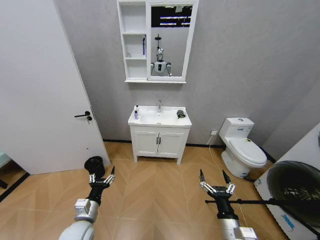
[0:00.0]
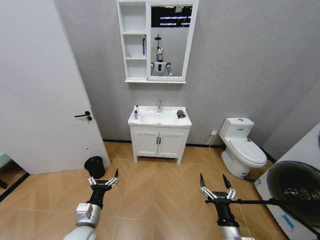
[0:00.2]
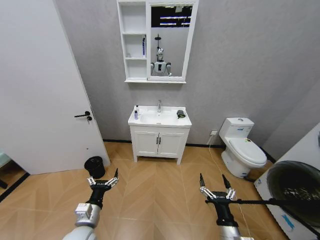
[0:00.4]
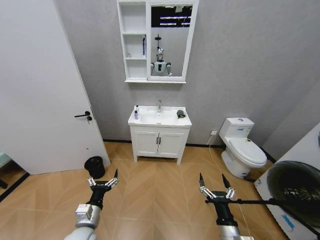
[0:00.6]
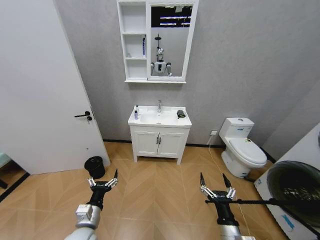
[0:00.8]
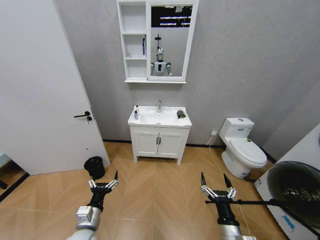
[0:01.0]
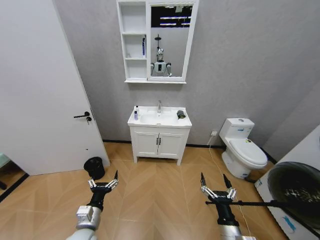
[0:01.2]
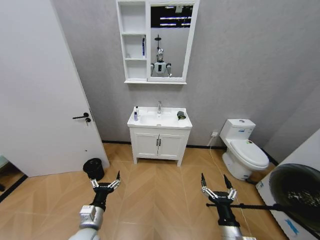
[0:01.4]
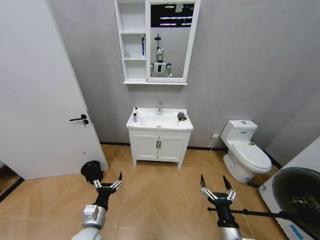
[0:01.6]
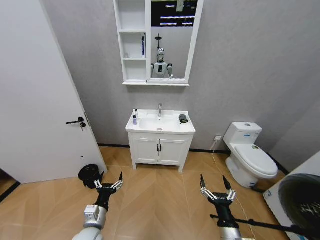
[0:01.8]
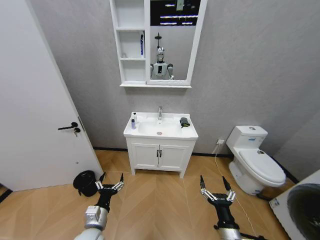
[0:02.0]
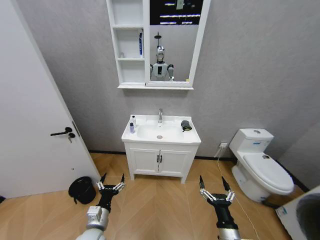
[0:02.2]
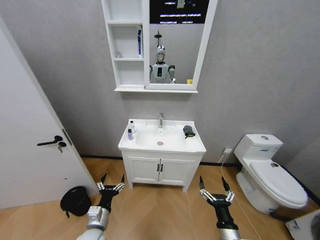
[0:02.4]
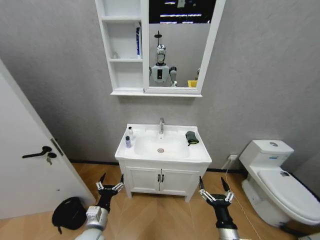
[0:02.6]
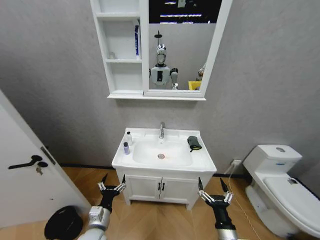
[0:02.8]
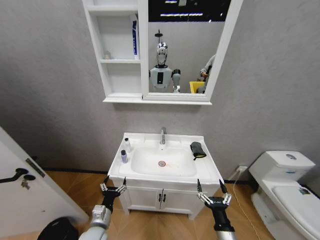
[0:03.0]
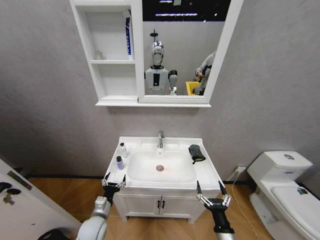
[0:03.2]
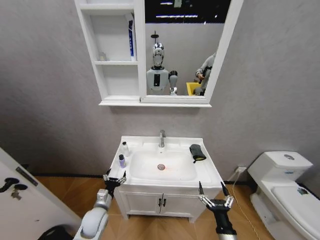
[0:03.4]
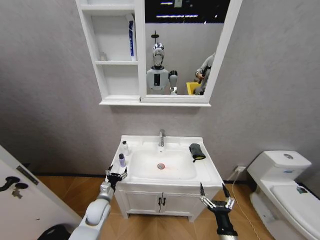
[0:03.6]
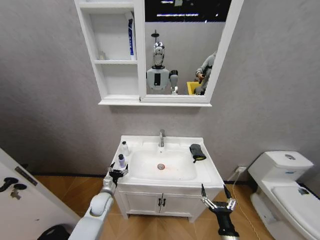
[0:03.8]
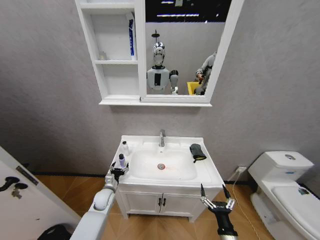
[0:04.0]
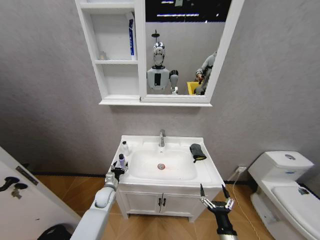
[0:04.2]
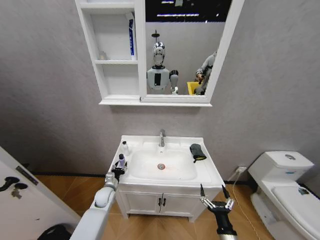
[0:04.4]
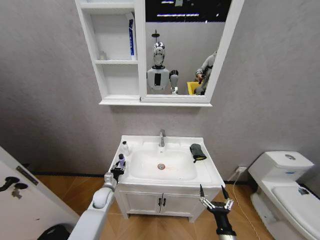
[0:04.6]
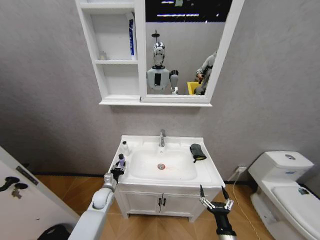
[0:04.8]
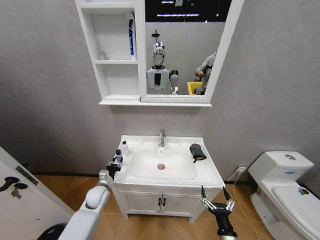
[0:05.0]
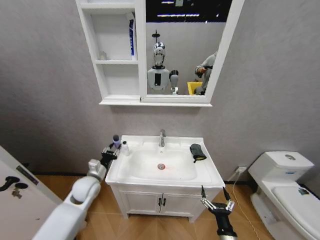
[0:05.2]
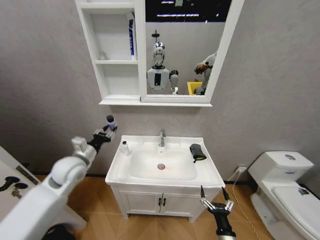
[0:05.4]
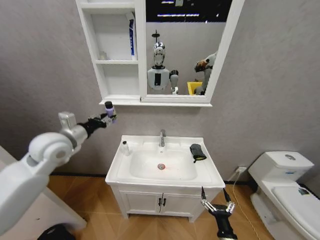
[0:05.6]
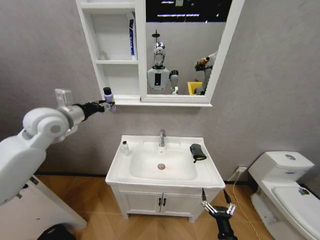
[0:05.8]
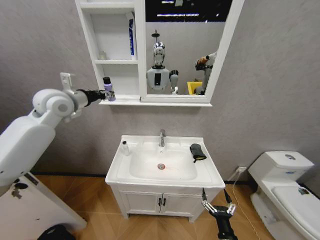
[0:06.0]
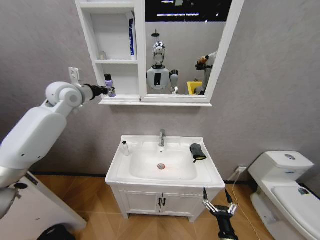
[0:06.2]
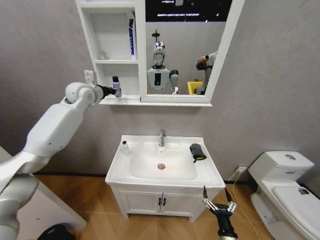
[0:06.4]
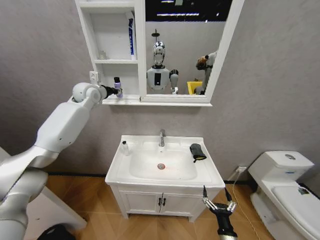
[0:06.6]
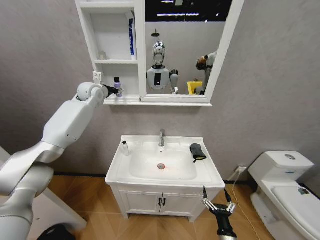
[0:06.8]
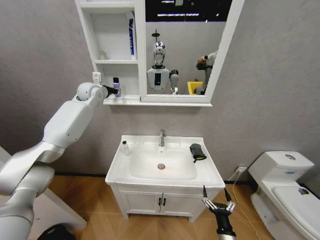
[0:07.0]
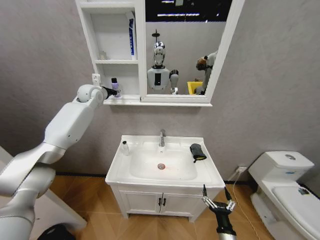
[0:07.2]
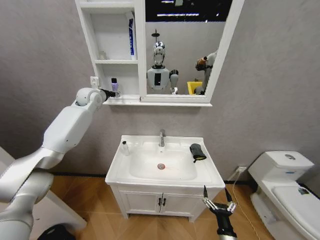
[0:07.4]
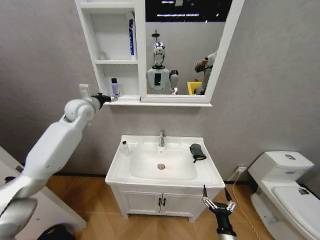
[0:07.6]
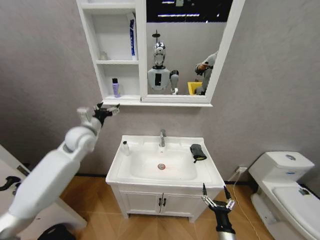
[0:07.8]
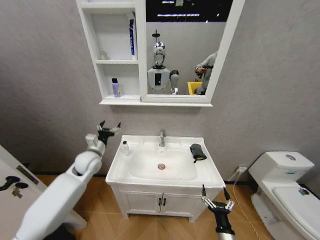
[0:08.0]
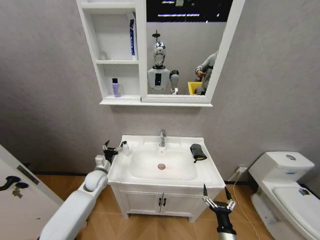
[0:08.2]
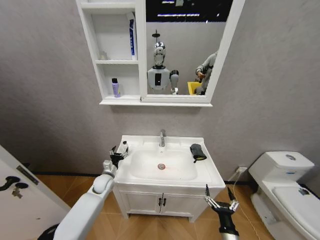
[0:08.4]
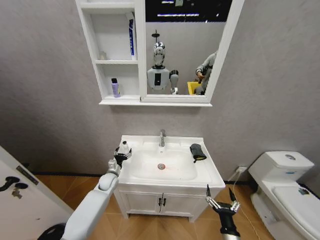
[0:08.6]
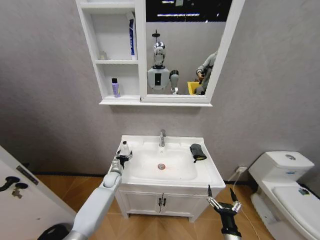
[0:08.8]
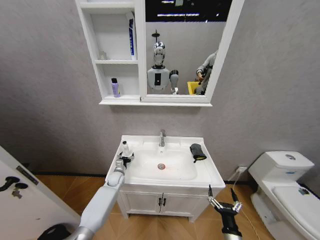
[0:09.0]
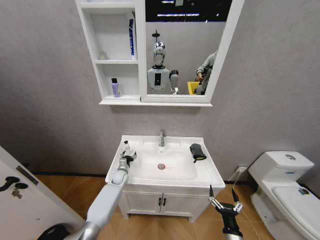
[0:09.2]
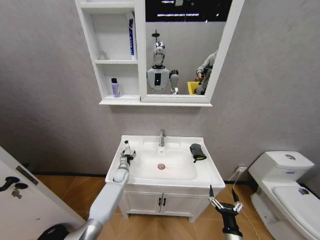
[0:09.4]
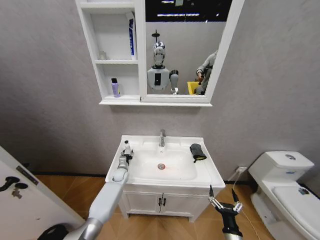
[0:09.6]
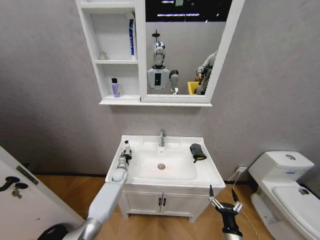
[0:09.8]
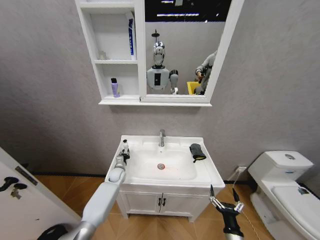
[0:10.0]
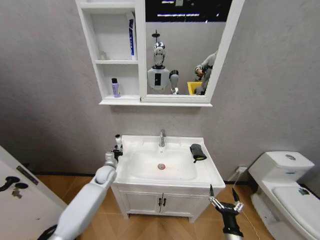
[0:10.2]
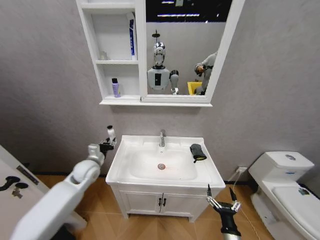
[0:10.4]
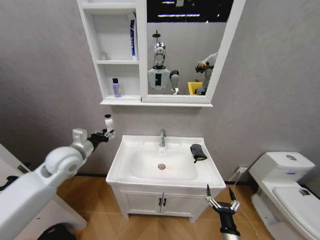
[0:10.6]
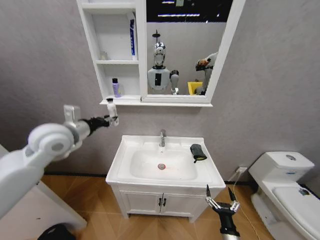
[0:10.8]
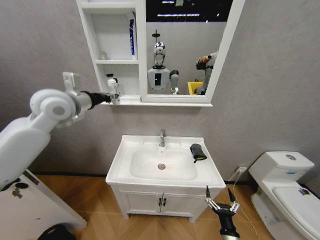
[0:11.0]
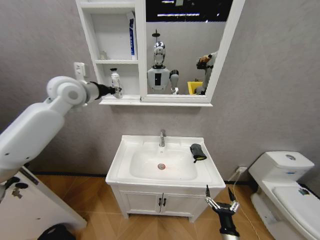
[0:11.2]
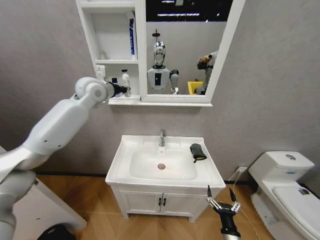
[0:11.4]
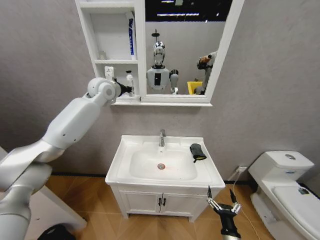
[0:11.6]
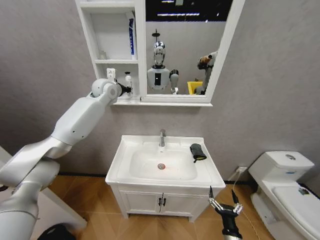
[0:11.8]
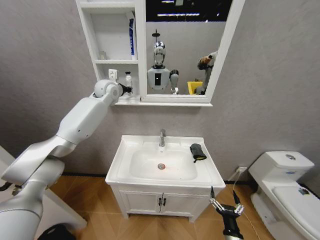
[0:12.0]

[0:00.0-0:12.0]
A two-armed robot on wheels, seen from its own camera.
Task of the whole recording: Move facial cleanser and shampoo from washbasin to cabinet, then wipe washbasin with towel.
0:03.0 to 0:04.4: The left gripper heads forward, covering about 20 cm, and closes its fingers.
0:04.4 to 0:06.0: The left gripper is displaced upward by about 50 cm.
0:06.0 to 0:07.6: The left gripper travels forward by some 10 cm, and opens.
0:07.6 to 0:09.0: The left gripper travels downward by about 40 cm.
0:09.0 to 0:10.4: The left gripper goes roughly 20 cm upward and backward, and closes.
0:10.4 to 0:12.0: The left gripper moves upward and forward, about 35 cm.

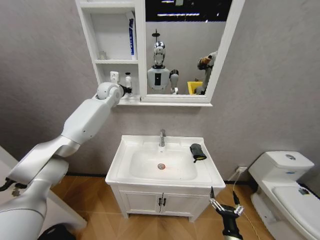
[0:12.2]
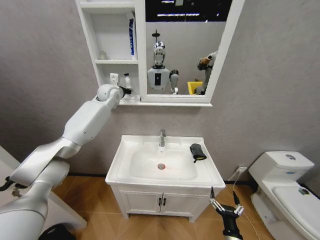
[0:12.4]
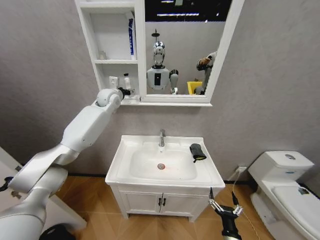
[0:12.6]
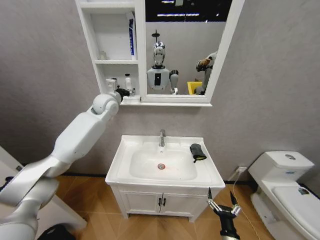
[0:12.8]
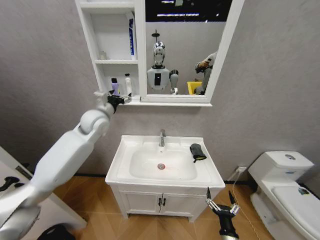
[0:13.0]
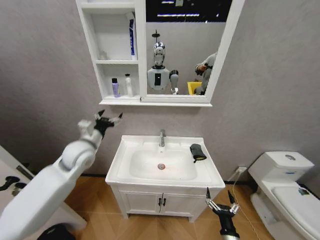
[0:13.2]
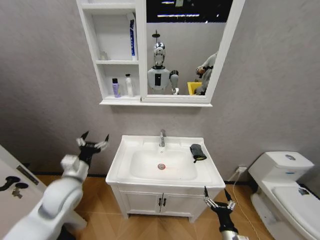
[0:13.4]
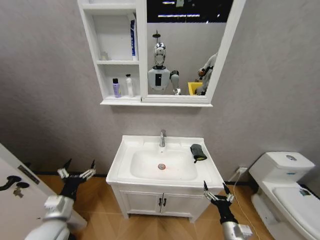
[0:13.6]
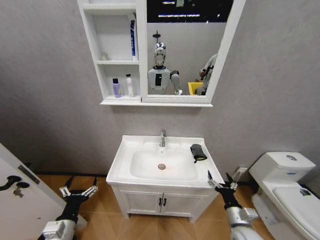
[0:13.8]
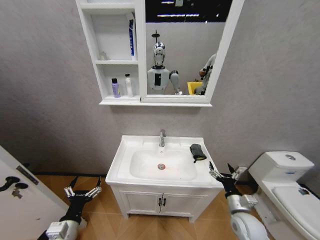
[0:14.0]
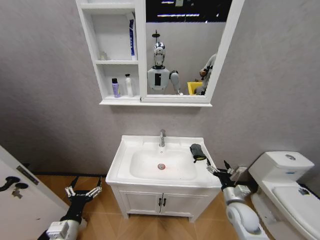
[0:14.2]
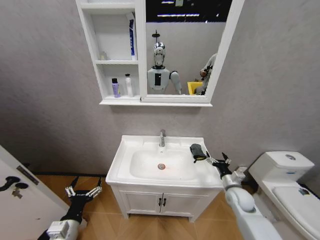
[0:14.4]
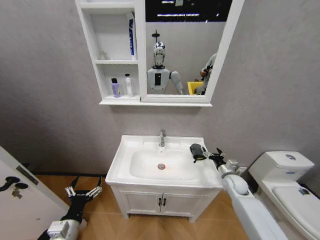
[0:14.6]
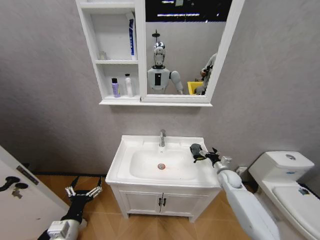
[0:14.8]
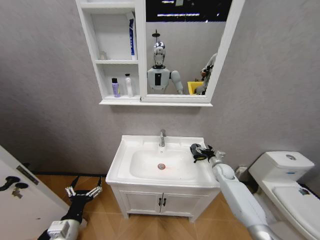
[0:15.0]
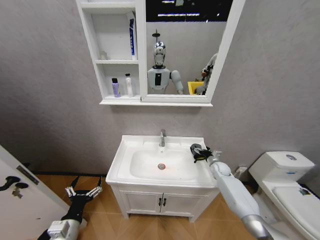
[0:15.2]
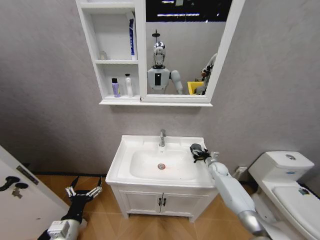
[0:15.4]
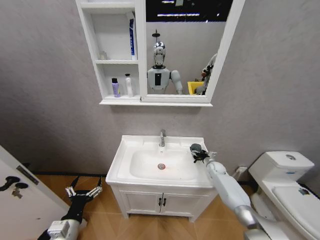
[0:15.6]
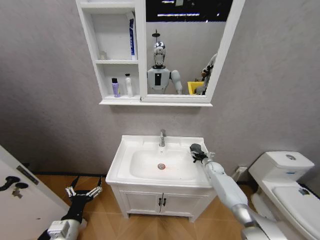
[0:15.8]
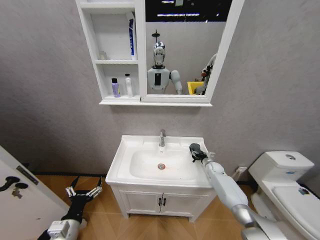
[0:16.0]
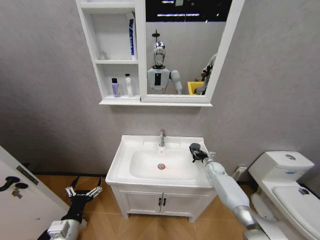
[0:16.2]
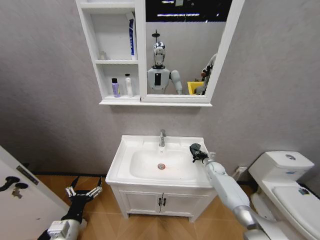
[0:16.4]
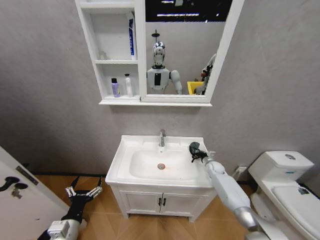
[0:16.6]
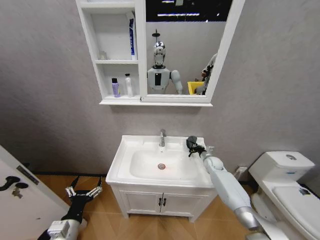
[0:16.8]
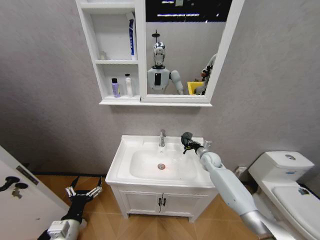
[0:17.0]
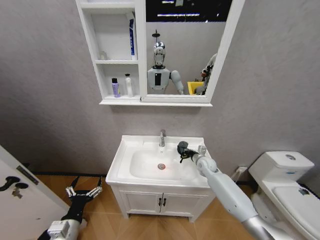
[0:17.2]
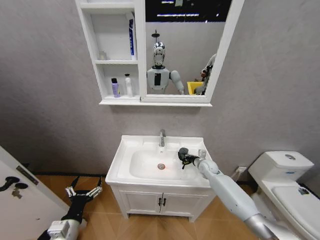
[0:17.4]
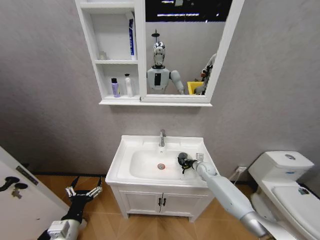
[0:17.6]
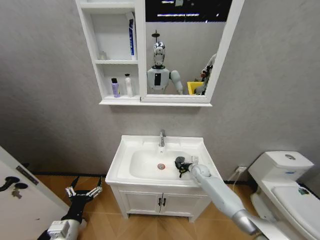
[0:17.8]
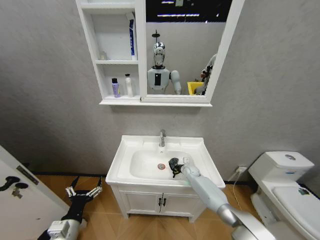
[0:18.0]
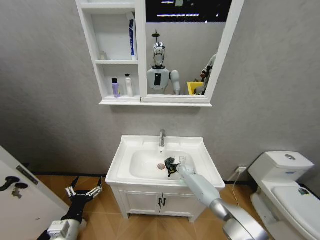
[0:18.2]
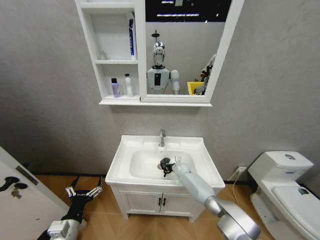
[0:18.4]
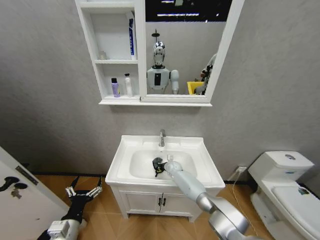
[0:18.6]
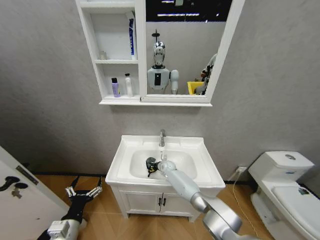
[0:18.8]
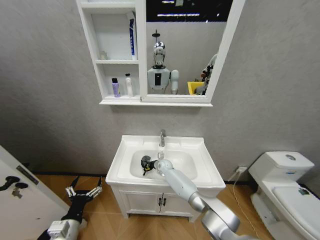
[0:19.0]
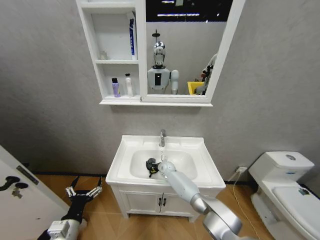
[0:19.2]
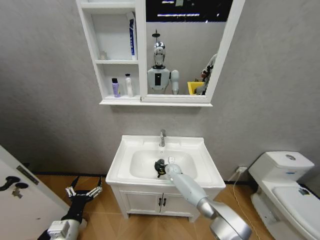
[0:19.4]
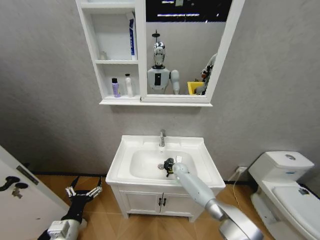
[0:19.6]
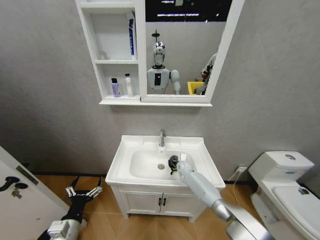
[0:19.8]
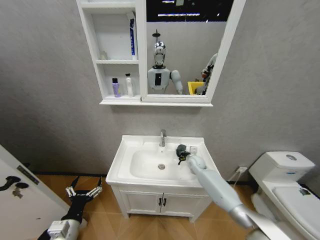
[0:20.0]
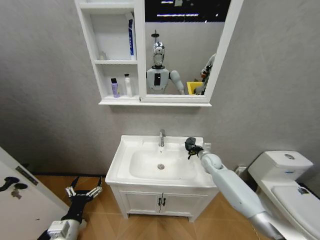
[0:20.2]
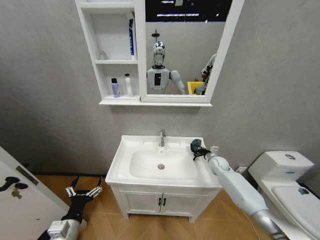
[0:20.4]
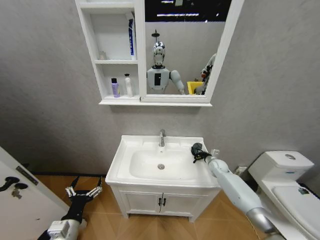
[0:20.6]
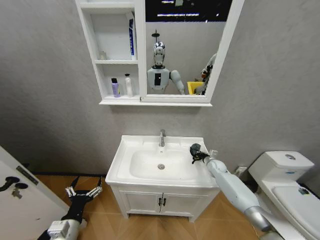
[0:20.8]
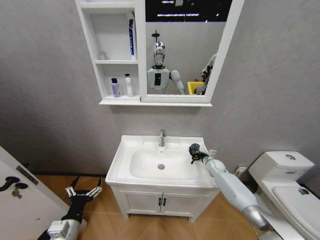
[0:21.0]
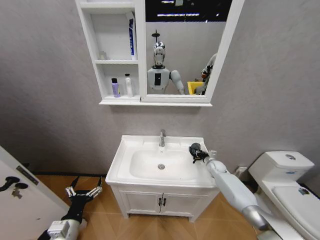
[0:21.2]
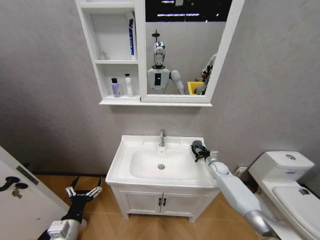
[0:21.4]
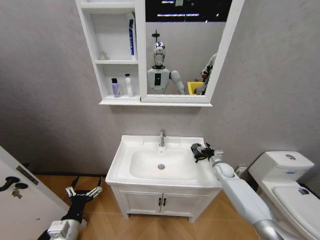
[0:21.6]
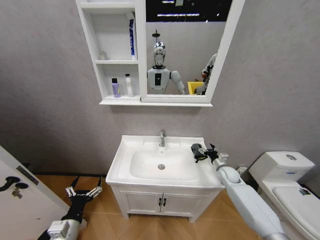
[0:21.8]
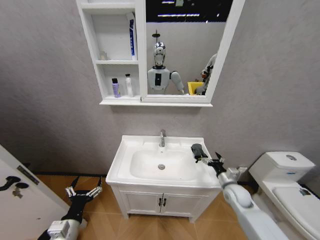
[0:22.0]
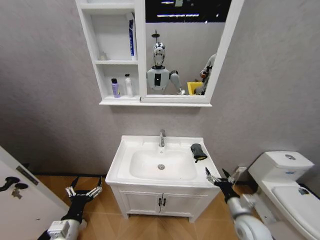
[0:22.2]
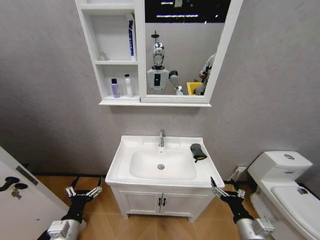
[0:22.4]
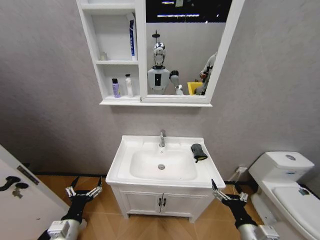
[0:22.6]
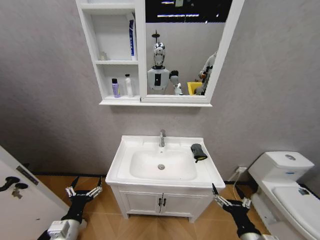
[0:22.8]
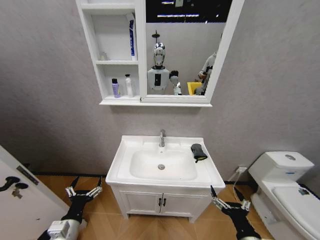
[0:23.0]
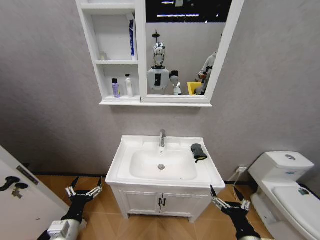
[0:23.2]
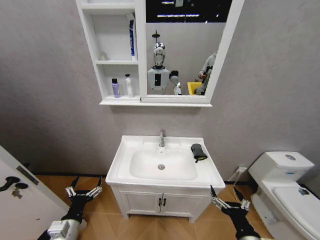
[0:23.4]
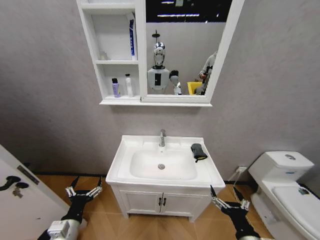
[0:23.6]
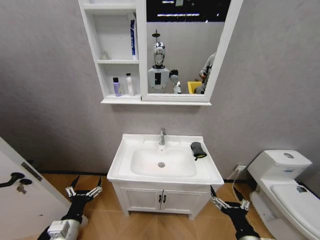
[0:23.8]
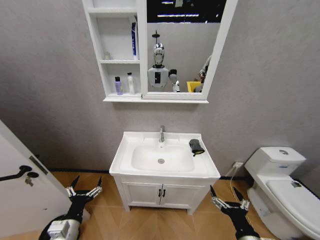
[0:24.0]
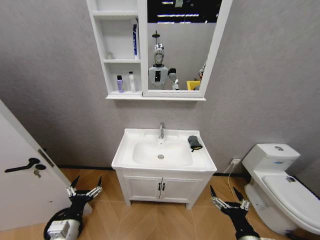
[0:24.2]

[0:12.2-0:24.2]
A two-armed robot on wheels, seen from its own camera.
Task of the whole recording: Move facial cleanser and shampoo from washbasin to cabinet, then wipe washbasin with towel.
0:12.2 to 0:13.8: The left gripper travels backward and downward by roughly 60 cm, and opens up, while the right gripper is displaced upward and forward by approximately 10 cm.
0:13.8 to 0:15.2: The right gripper goes roughly 30 cm forward.
0:15.2 to 0:16.6: The right gripper closes up.
0:16.6 to 0:18.2: The right gripper is displaced to the left by approximately 15 cm.
0:18.2 to 0:19.8: The right gripper moves approximately 15 cm to the left and comes back.
0:19.8 to 0:21.2: The right gripper heads to the right, covering some 20 cm.
0:21.2 to 0:22.6: The right gripper travels backward by approximately 40 cm, and opens its fingers.
